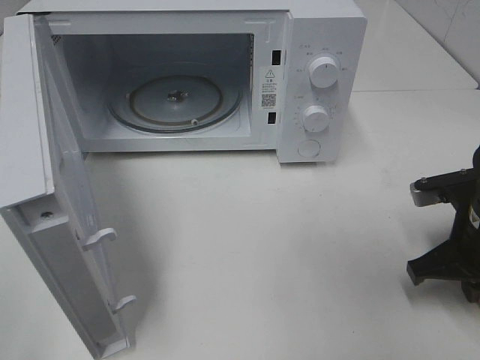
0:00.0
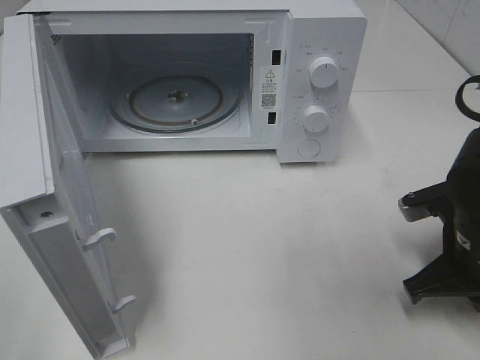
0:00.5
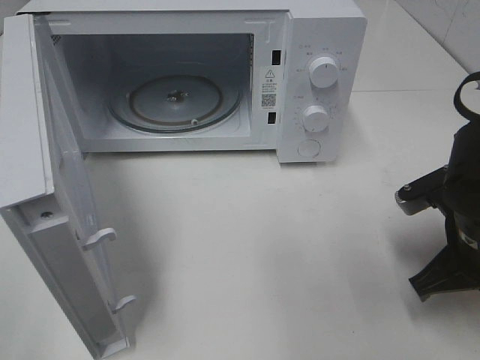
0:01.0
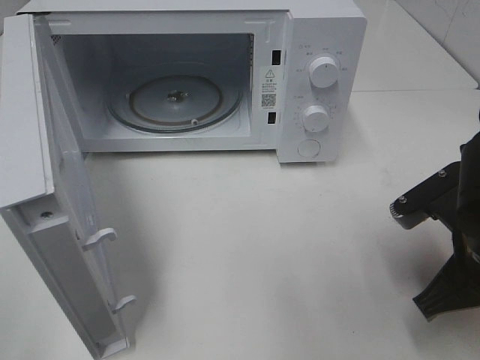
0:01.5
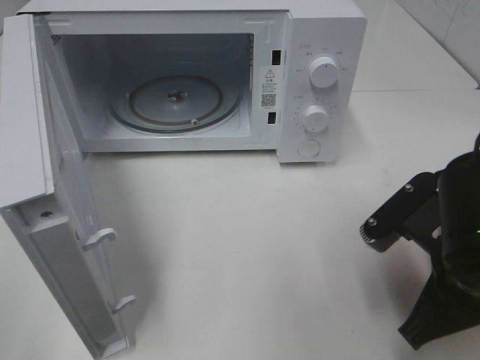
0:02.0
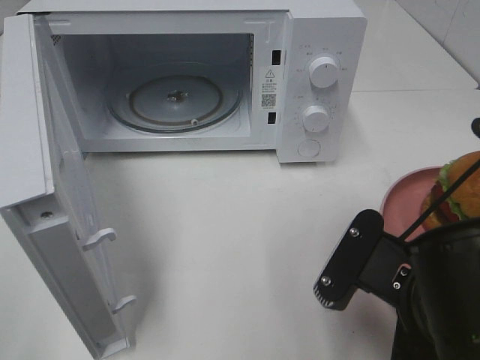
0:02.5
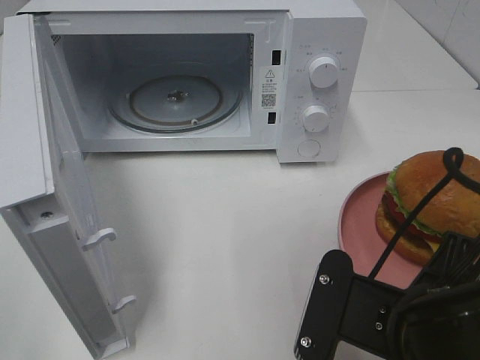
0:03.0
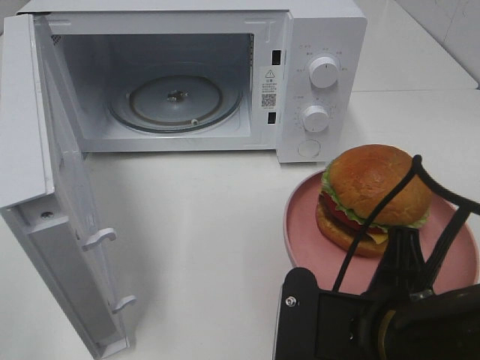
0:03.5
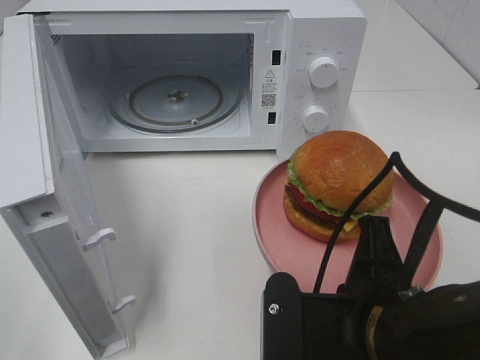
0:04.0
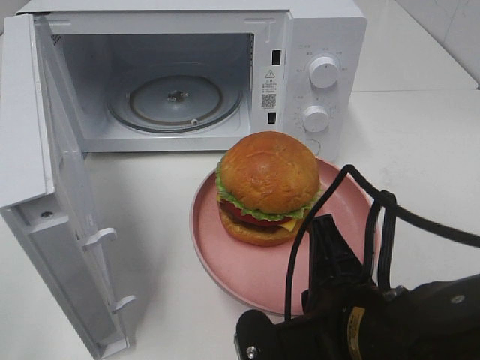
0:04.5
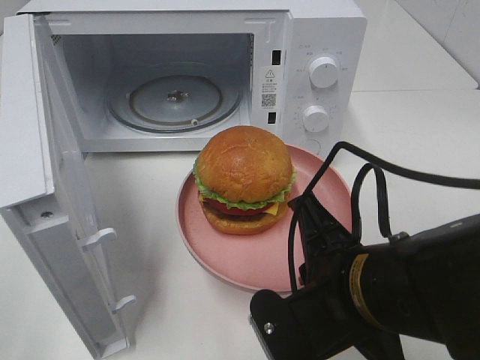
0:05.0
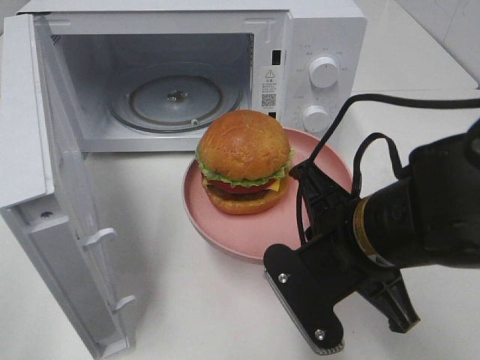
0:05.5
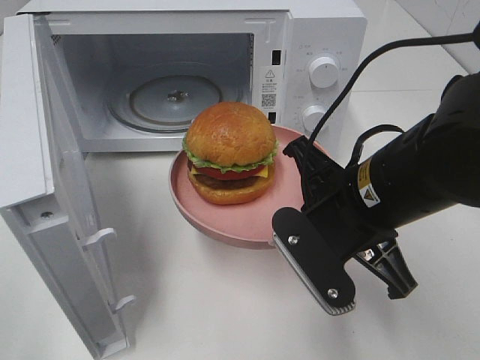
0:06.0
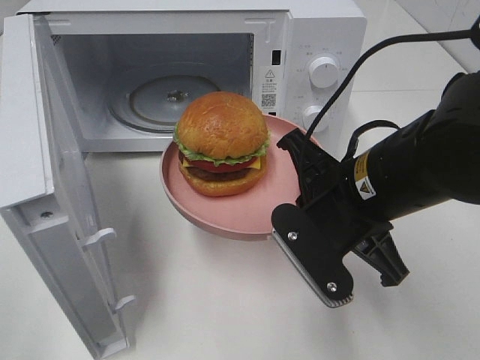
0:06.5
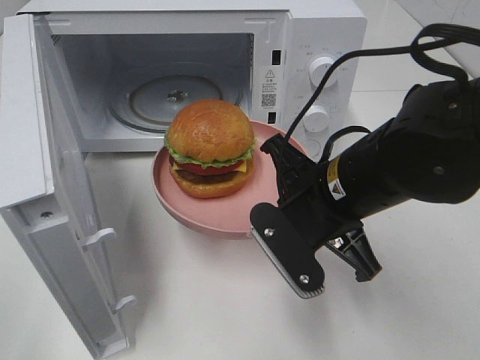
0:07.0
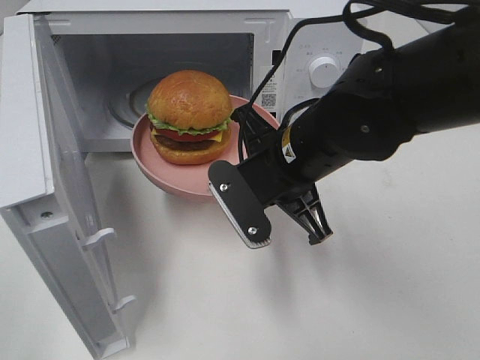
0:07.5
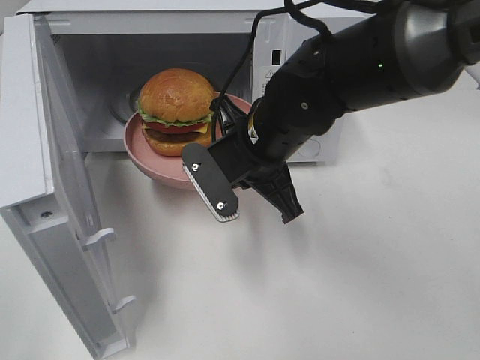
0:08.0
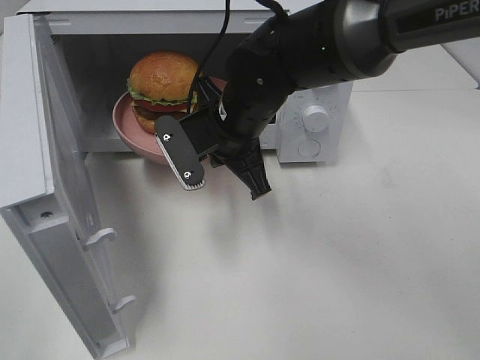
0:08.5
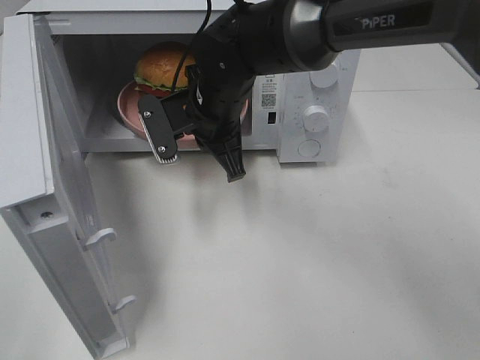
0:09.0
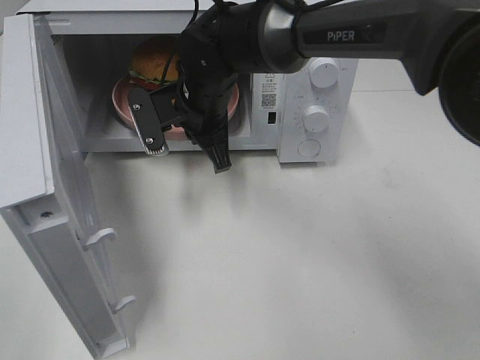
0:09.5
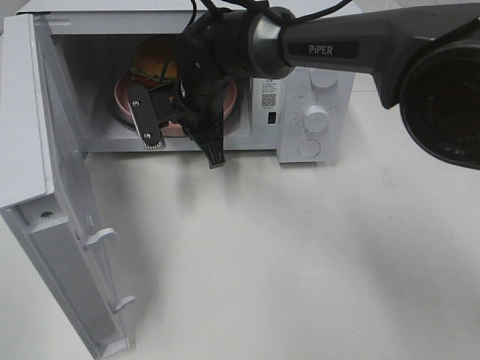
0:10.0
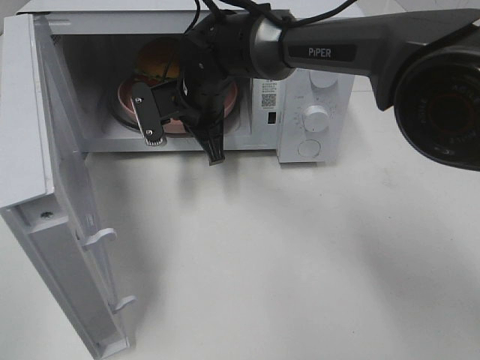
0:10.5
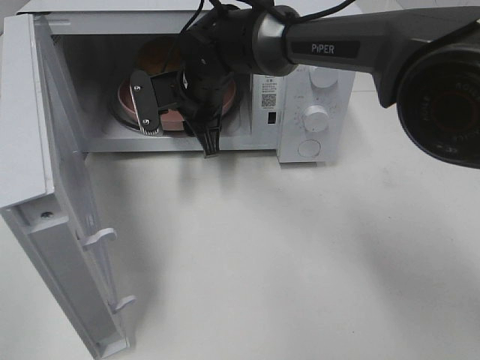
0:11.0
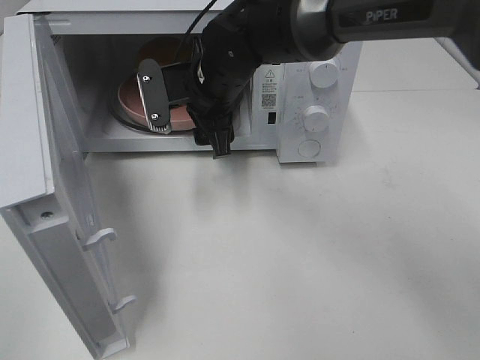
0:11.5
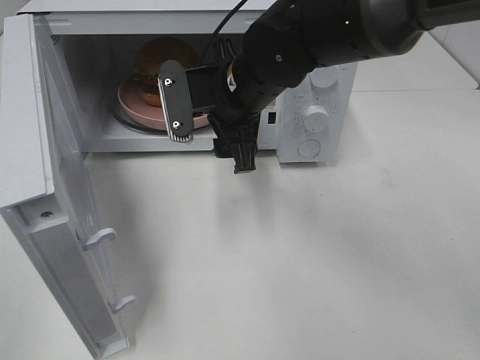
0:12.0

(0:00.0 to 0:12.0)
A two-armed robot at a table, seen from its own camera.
Task of the whole recording: Heat the burger.
Step, 0:00.0 - 0:10.5: Right hand: place the plate in the microwave.
0:00.0 - 0:02.0: The right gripper shifts approximately 10 cm to the left and backward.
0:02.0 - 0:04.0: The right gripper goes approximately 10 cm to the left and backward.
0:04.0 - 0:06.0: The right gripper shifts roughly 10 cm forward.
0:06.0 - 0:08.0: The right gripper travels forward and to the left by roughly 10 cm.
0:08.0 - 0:10.0: The right gripper travels forward and to the left by approximately 15 cm.
0:10.0 - 0:12.0: The right gripper is displaced backward and to the right by roughly 10 cm, and opens its fingers.

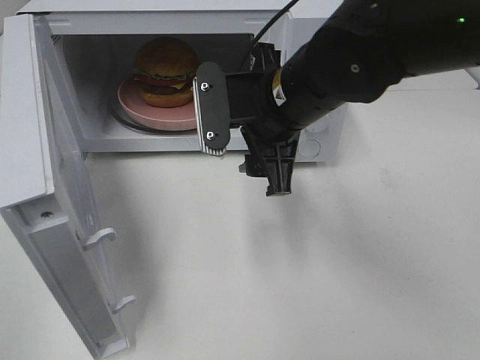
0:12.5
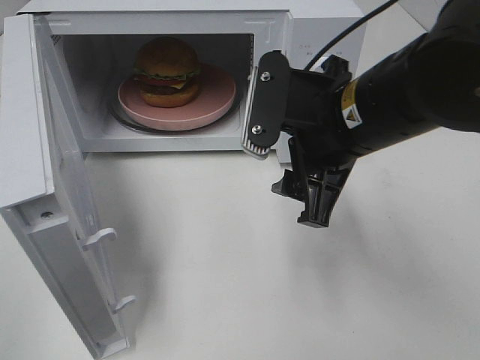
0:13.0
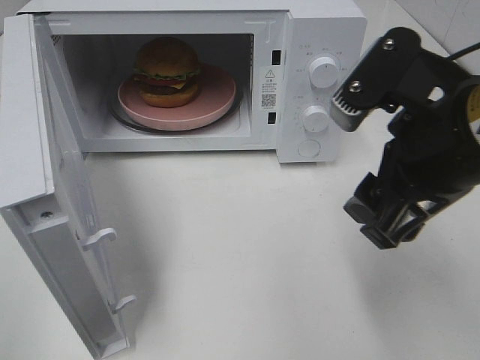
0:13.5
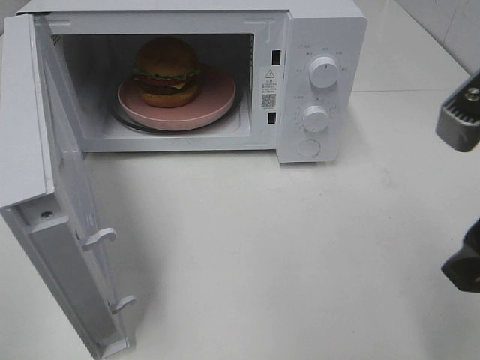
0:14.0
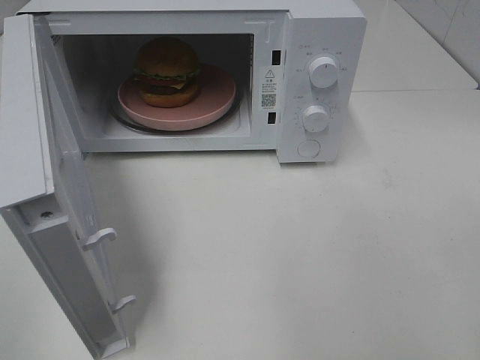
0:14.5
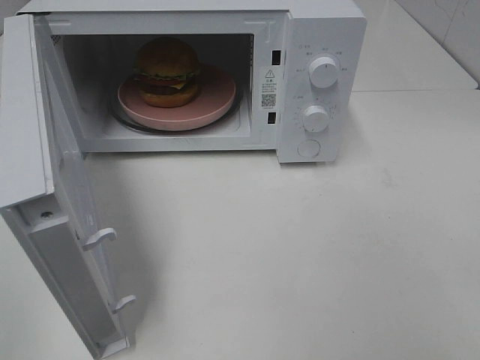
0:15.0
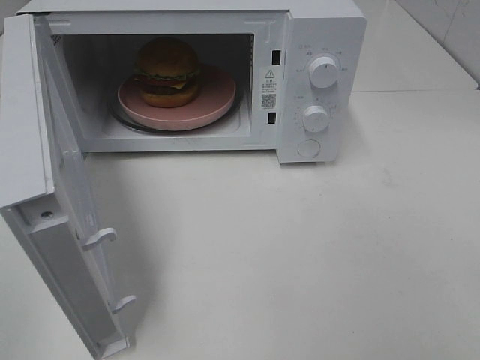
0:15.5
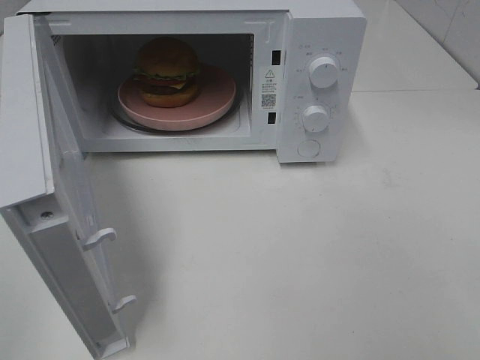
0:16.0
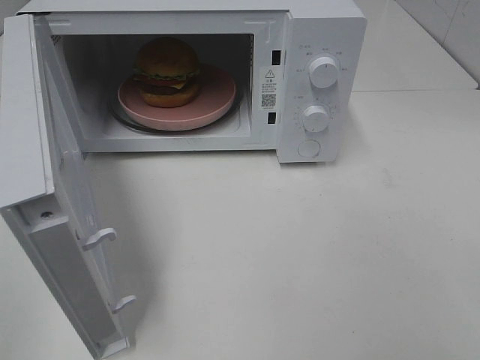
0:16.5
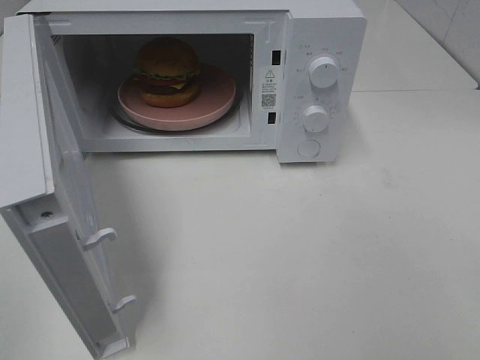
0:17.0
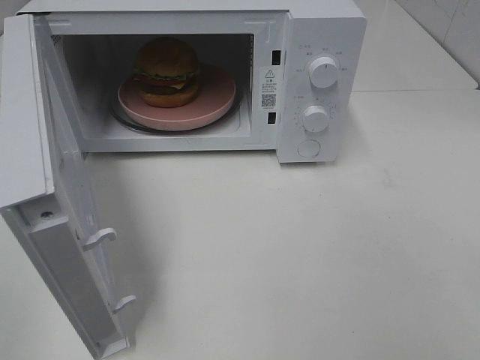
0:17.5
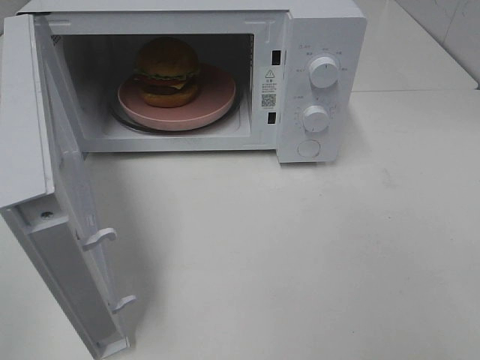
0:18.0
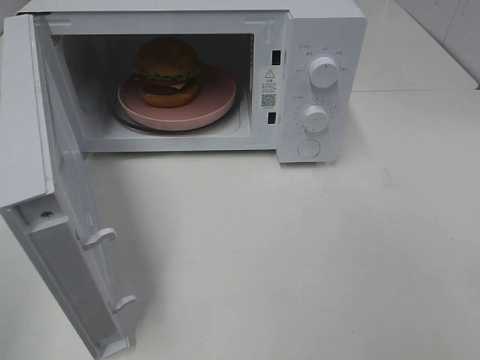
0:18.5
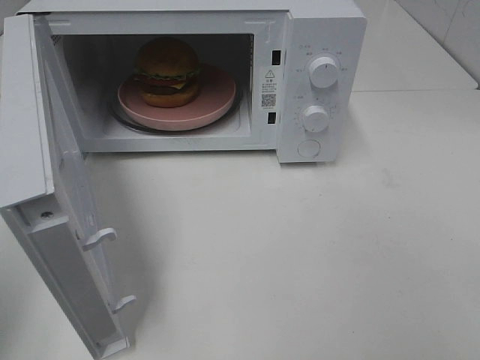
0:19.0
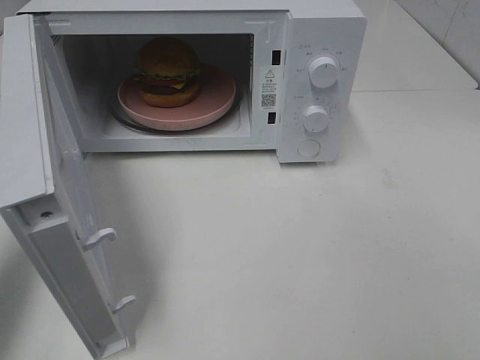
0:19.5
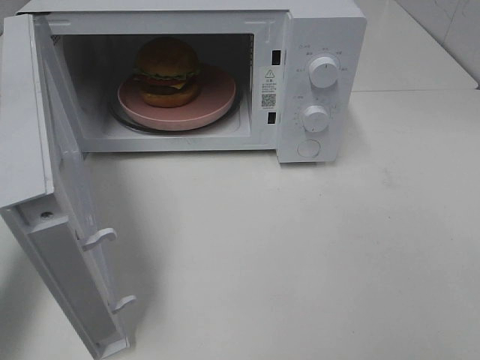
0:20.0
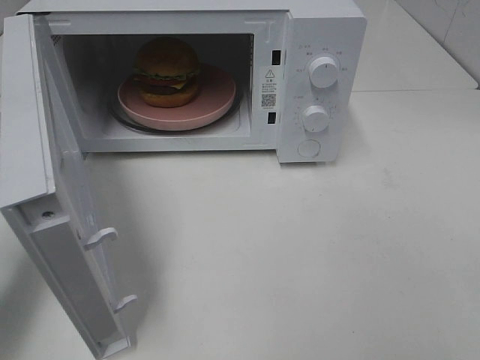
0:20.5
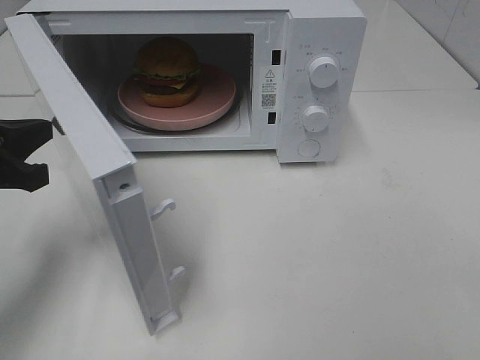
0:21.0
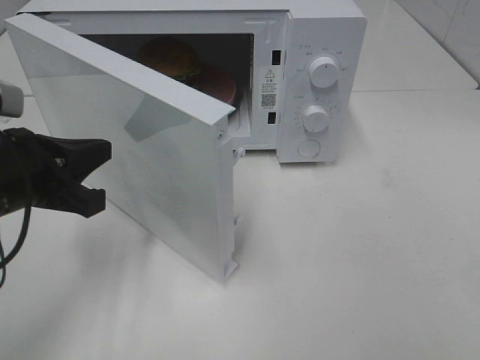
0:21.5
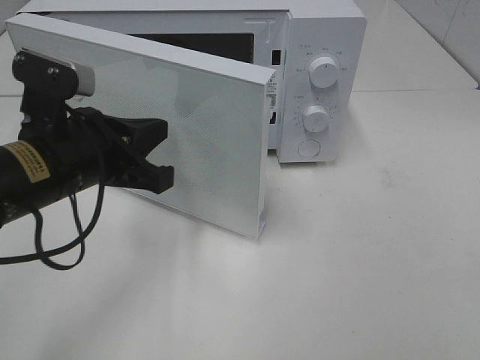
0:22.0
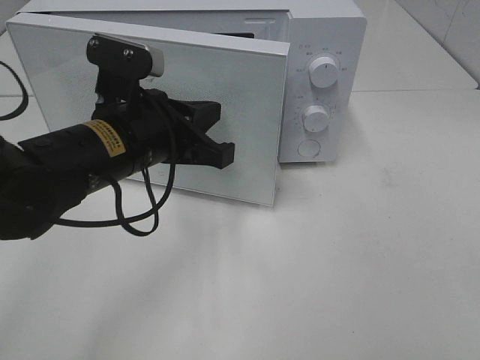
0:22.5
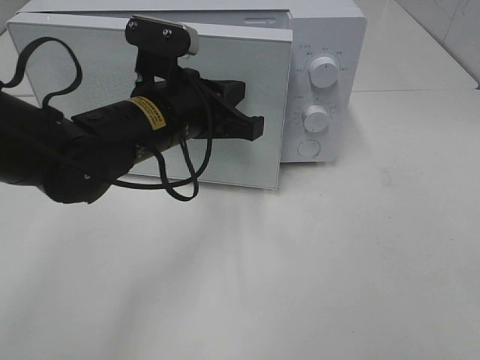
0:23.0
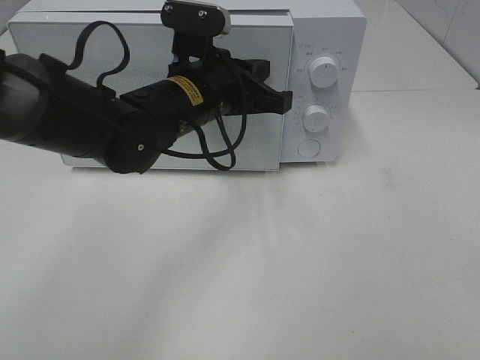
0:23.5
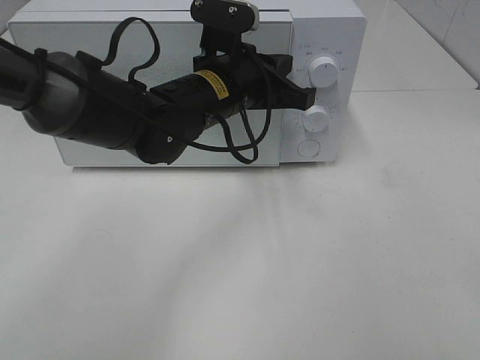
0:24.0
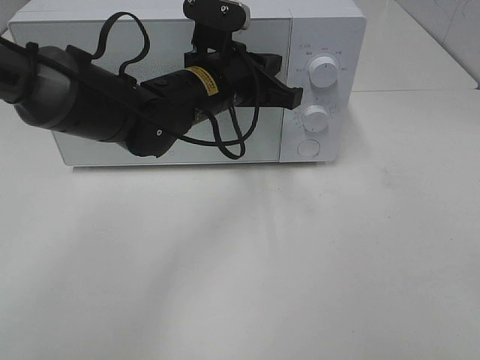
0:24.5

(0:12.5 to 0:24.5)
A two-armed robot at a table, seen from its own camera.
Task of the whole recording: Heat the burger.
0:12.5 - 0:14.5: The right gripper is displaced backward, to the right and upward by roughly 30 cm.
0:18.5 - 0:20.5: The left gripper moves forward and downward, roughly 20 cm, and closes.
0:20.5 - 0:22.5: The left gripper shifts roughly 20 cm to the right.
0:22.5 - 0:24.5: The left gripper moves forward and to the right, roughly 10 cm.

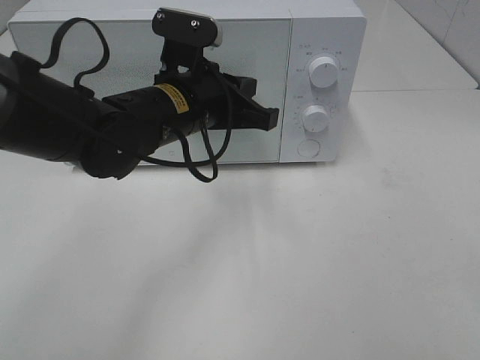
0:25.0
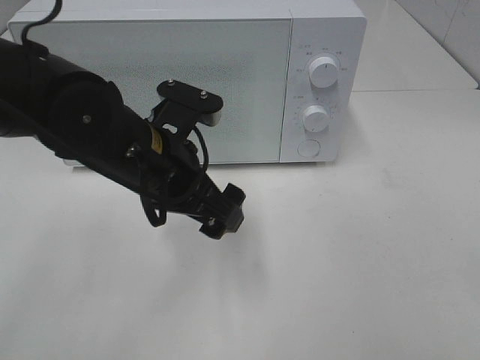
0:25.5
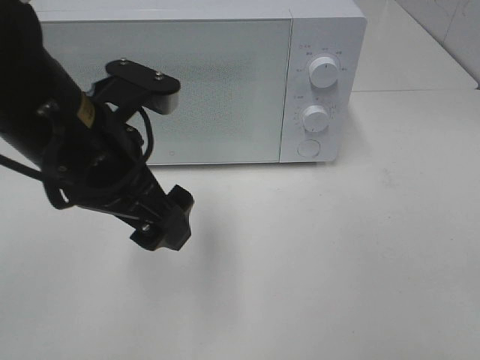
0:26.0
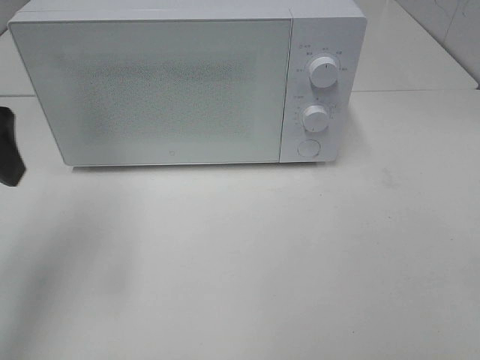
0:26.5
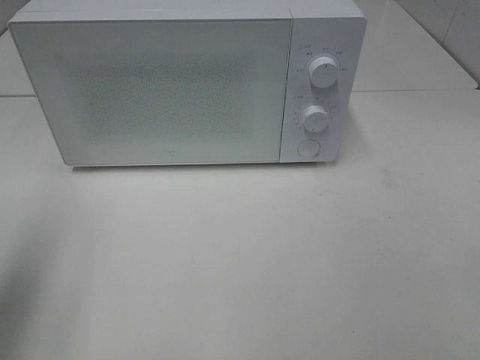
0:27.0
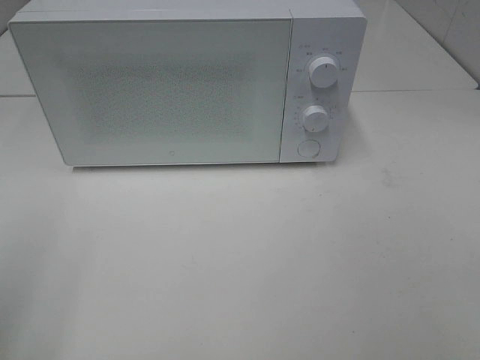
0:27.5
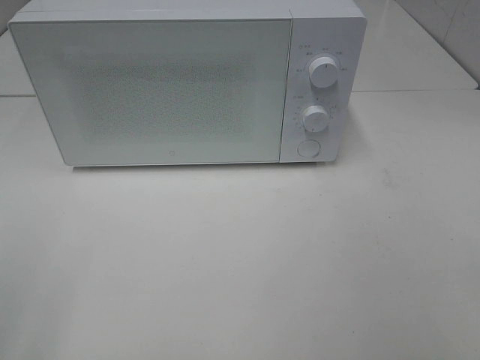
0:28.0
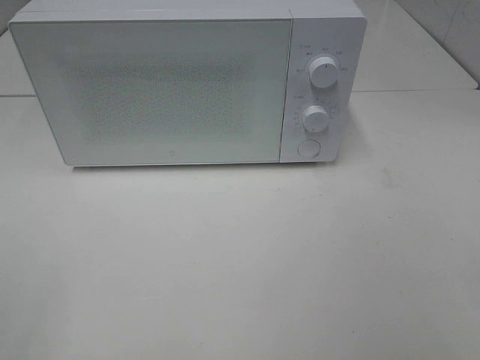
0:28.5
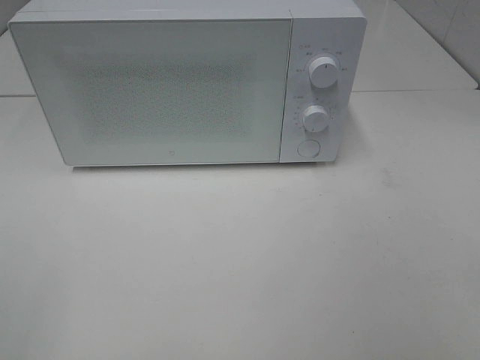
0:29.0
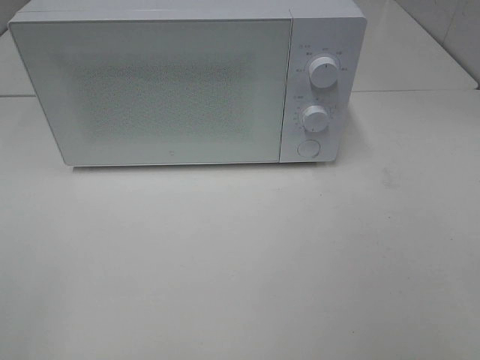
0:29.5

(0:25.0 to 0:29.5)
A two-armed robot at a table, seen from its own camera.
Task of the whole recording: Heat the burger.
0:25.0 - 0:27.0: The left gripper shifts some 30 cm to the left, backward and upward, and opens.
0:27.0 - 0:29.5: The left gripper shifts approximately 15 cm backward.
